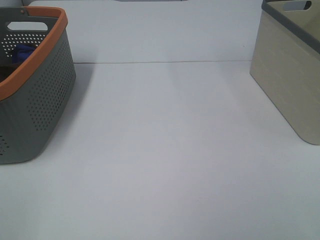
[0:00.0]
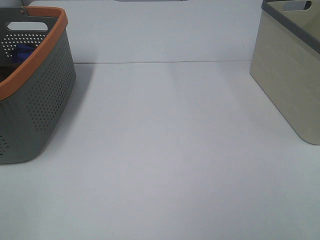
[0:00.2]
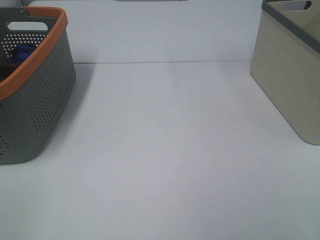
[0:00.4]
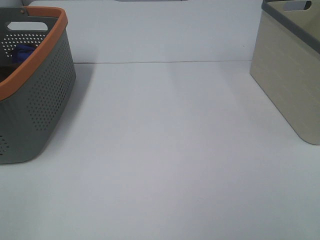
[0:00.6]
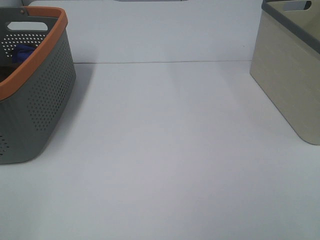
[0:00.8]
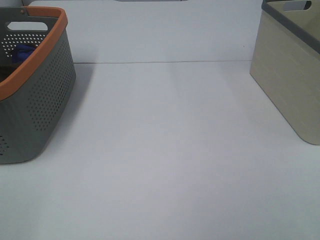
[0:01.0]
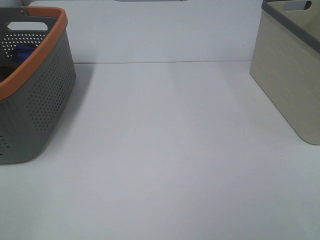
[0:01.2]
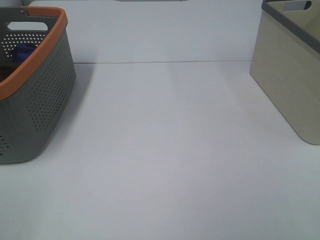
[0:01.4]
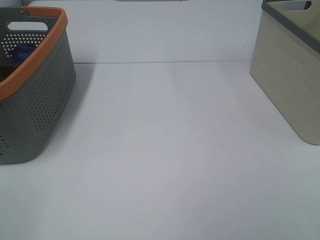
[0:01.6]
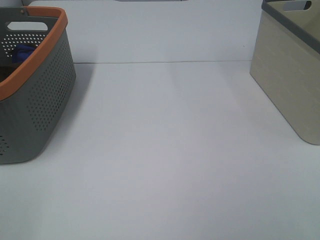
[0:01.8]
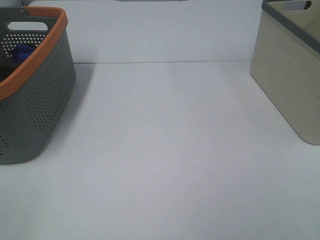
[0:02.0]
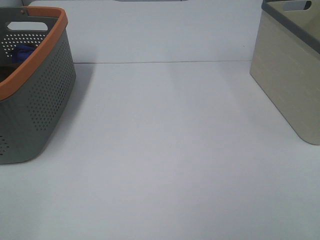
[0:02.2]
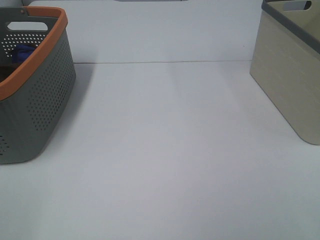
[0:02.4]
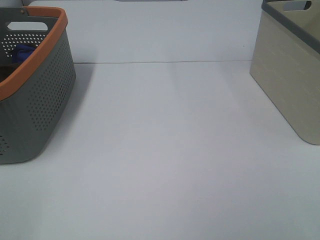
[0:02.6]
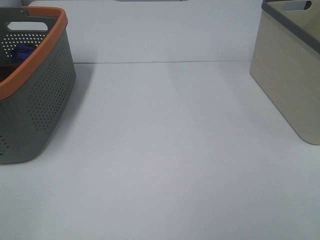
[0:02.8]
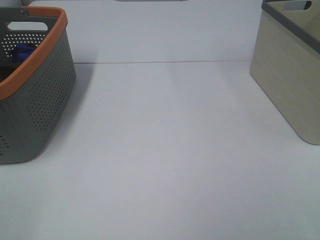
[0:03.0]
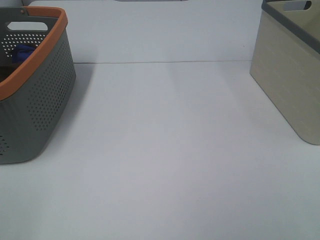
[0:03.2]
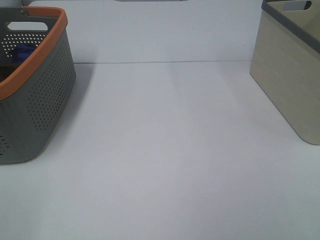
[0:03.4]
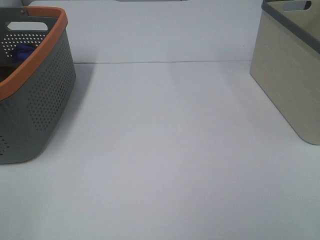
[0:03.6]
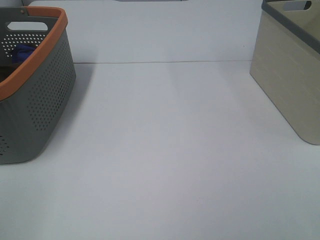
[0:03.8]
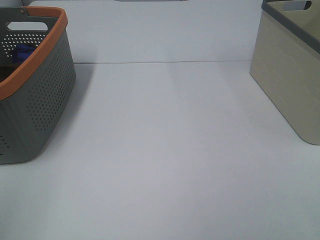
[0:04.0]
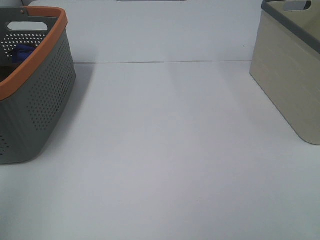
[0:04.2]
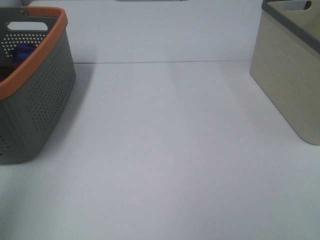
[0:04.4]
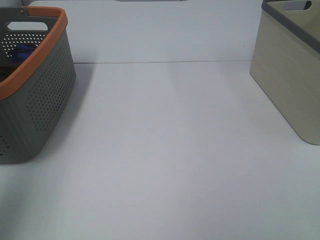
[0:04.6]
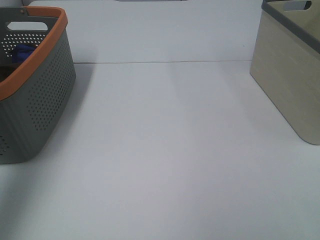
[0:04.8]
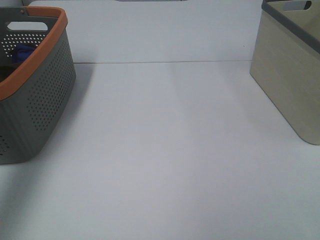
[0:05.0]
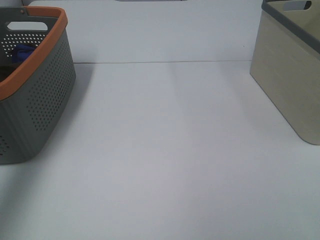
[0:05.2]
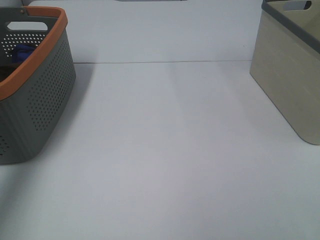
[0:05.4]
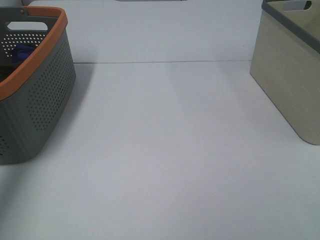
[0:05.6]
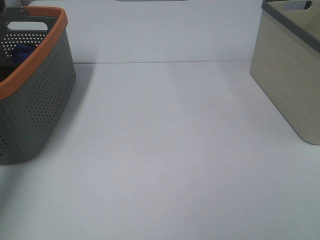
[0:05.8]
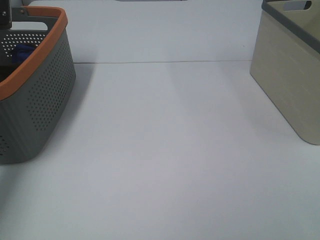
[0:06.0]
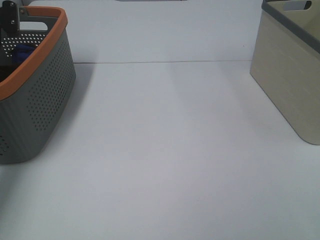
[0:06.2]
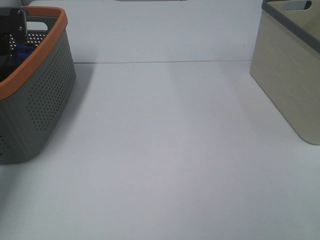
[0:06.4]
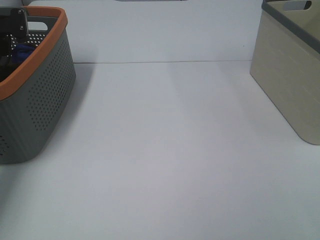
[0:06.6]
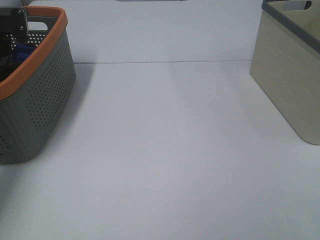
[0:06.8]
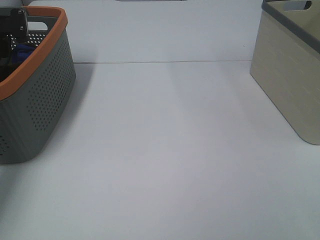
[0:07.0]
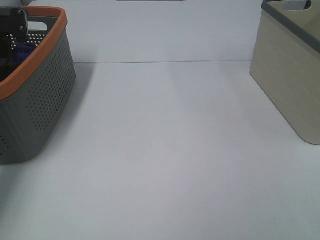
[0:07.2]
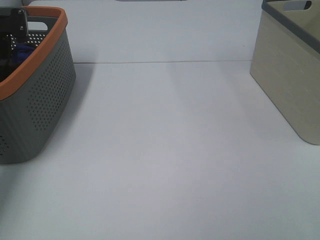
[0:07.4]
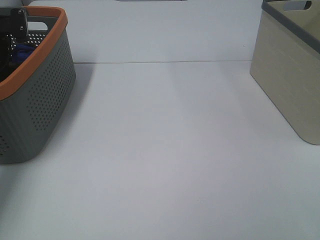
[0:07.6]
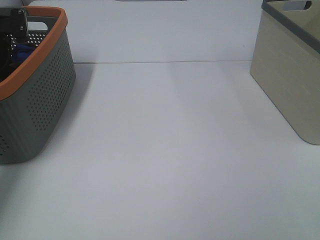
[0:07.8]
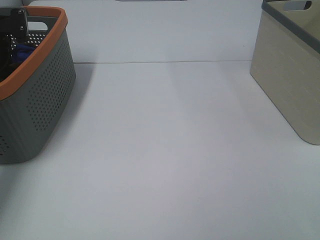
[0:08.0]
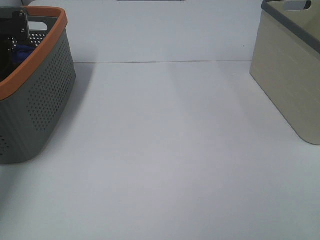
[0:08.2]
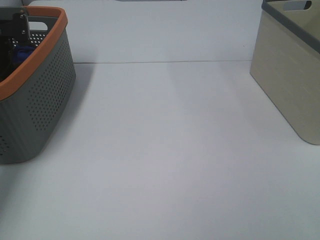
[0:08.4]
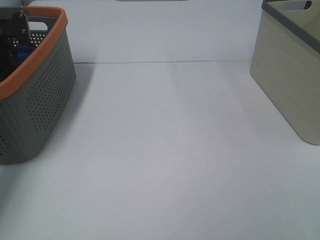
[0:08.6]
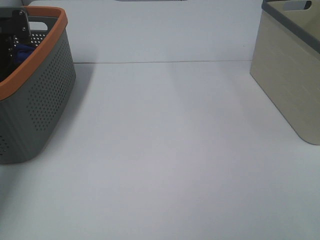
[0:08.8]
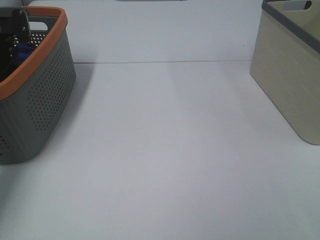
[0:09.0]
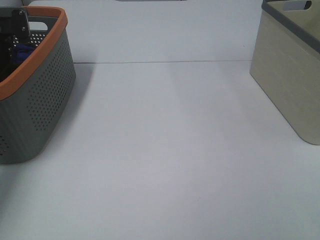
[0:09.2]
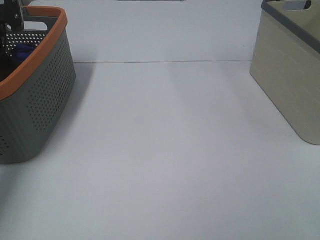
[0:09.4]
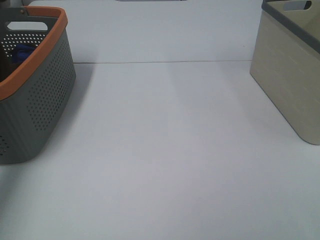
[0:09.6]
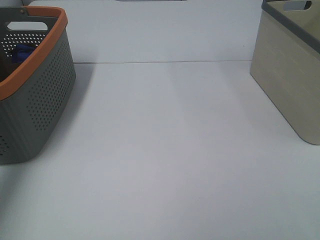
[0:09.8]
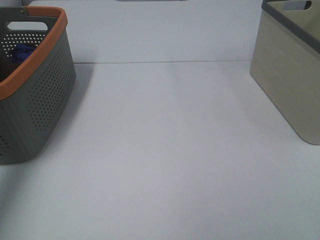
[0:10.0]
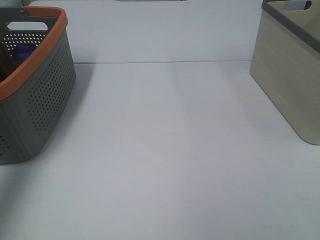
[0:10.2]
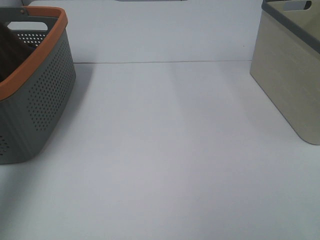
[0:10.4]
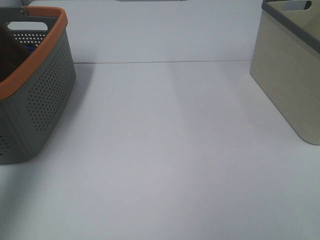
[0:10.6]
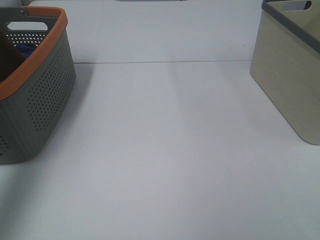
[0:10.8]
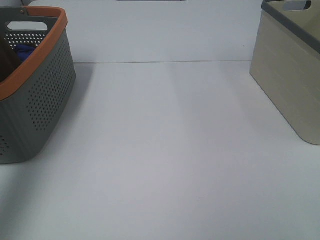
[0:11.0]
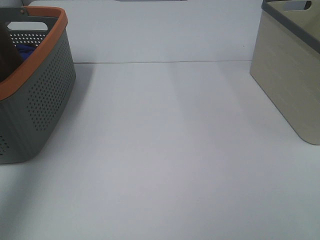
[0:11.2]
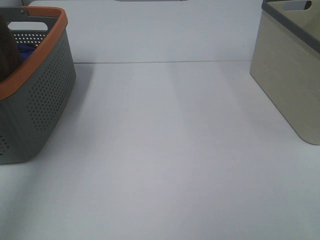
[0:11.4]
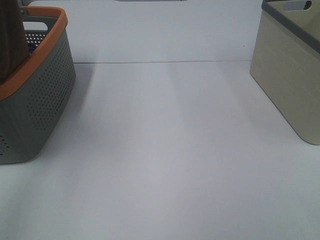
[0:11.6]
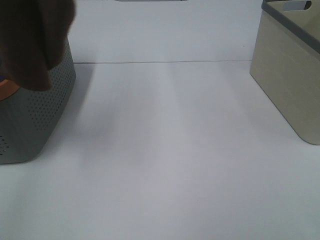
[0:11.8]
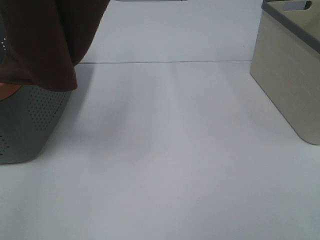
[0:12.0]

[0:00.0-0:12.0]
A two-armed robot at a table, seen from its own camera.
Task of the whole recording: Remove the towel and place it.
0:00.0 to 0:03.0: Both grippers stay put.
0:03.0 to 0:04.4: The left gripper goes about 20 cm forward and upward.
0:04.4 to 0:06.0: The left gripper moves forward and downward, approximately 35 cm.
0:06.0 to 0:07.6: The left gripper closes.
0:09.0 to 0:10.4: The left gripper shifts approximately 30 cm upward and backward.
0:10.4 to 0:12.0: The left gripper travels to the right, upward and backward by some 20 cm.

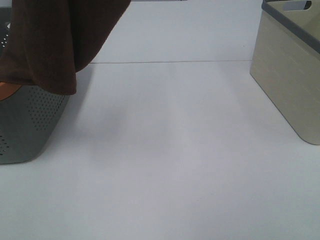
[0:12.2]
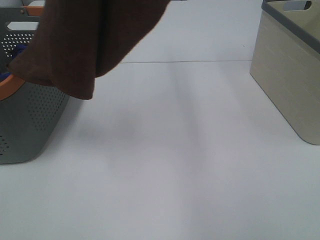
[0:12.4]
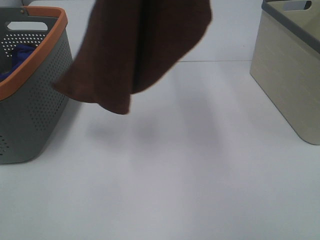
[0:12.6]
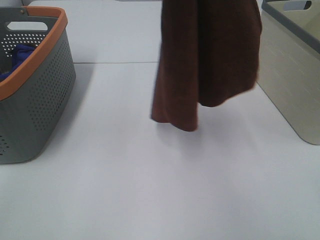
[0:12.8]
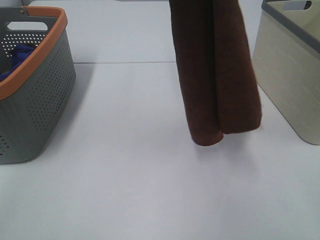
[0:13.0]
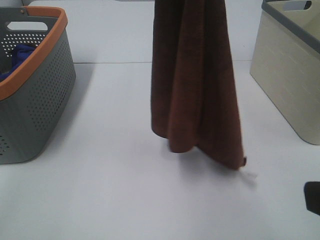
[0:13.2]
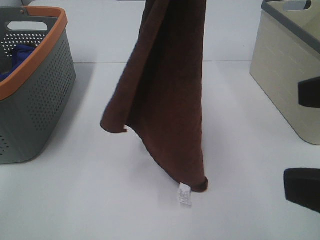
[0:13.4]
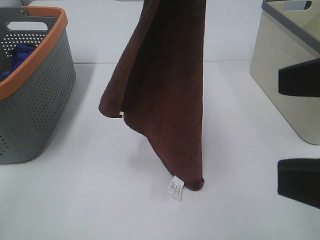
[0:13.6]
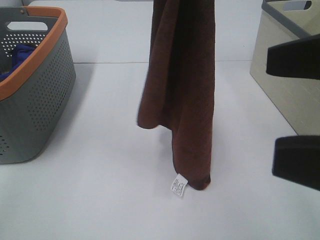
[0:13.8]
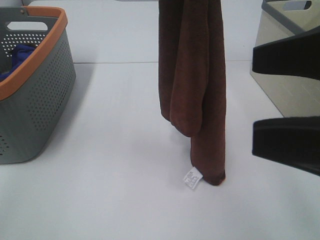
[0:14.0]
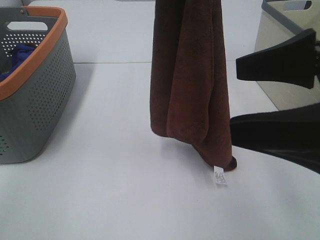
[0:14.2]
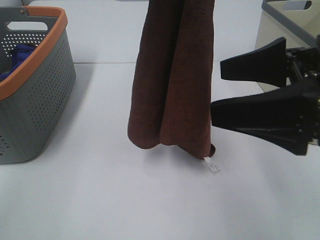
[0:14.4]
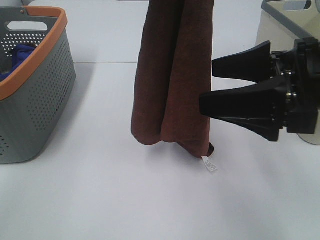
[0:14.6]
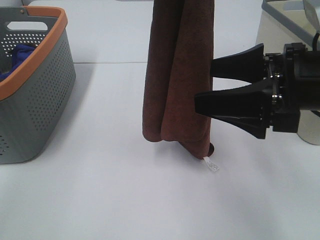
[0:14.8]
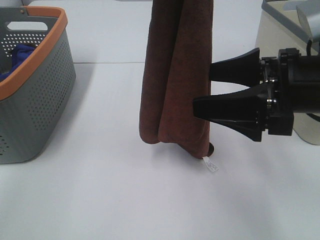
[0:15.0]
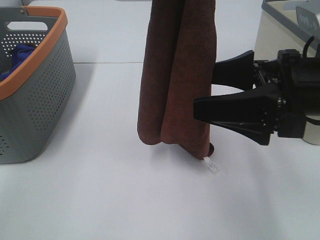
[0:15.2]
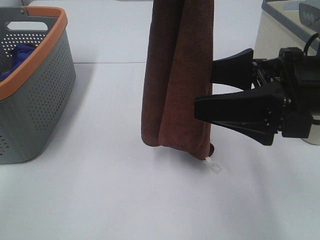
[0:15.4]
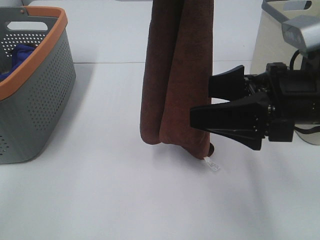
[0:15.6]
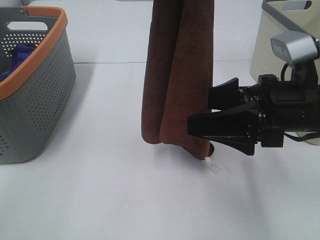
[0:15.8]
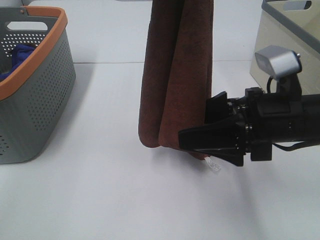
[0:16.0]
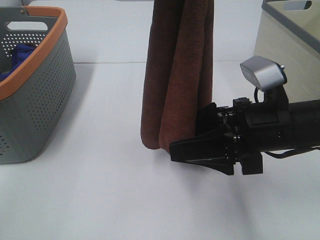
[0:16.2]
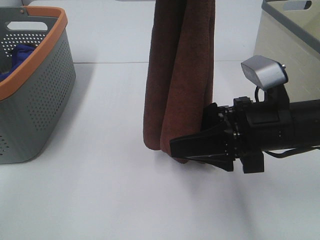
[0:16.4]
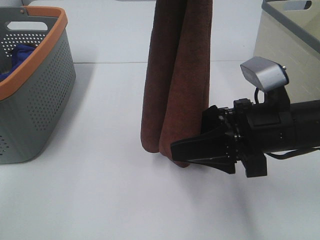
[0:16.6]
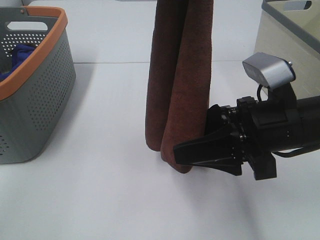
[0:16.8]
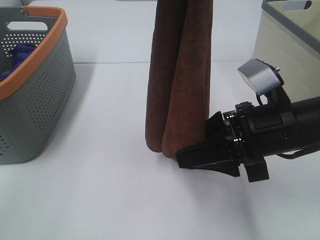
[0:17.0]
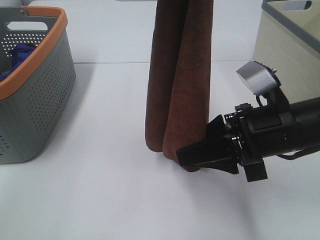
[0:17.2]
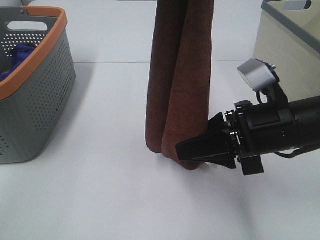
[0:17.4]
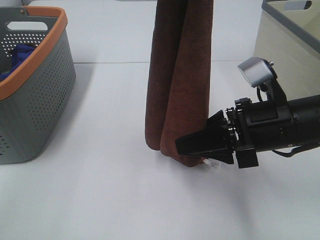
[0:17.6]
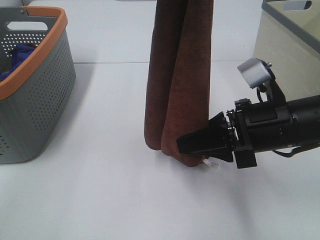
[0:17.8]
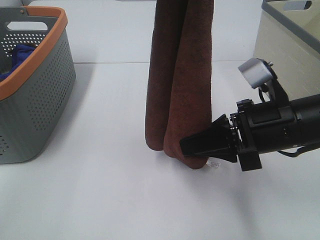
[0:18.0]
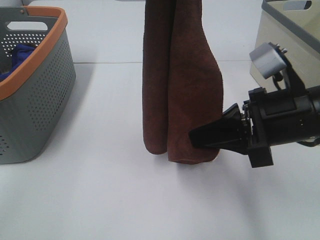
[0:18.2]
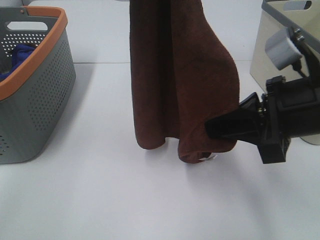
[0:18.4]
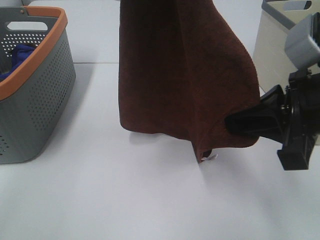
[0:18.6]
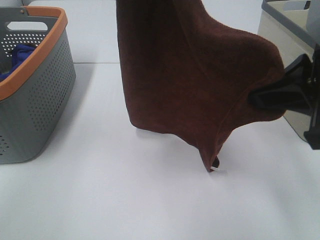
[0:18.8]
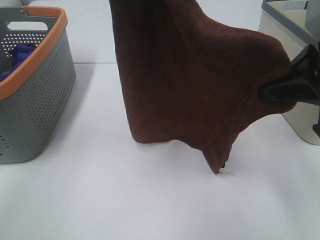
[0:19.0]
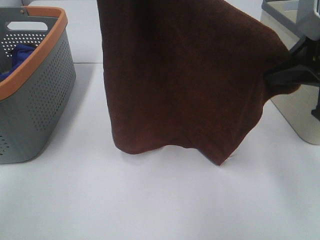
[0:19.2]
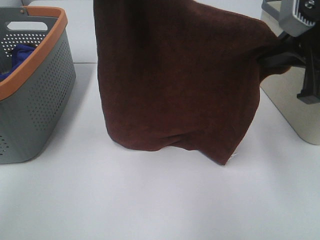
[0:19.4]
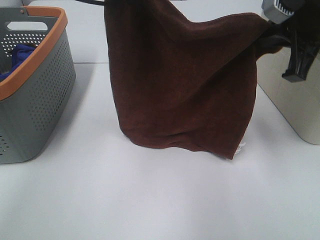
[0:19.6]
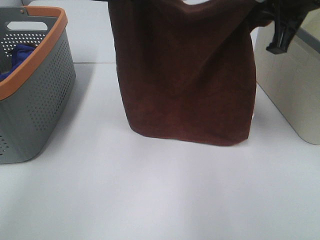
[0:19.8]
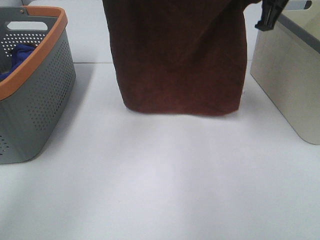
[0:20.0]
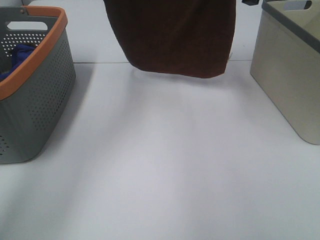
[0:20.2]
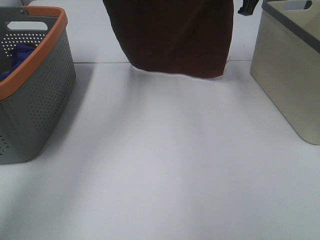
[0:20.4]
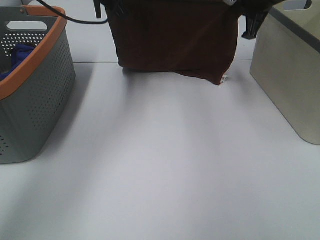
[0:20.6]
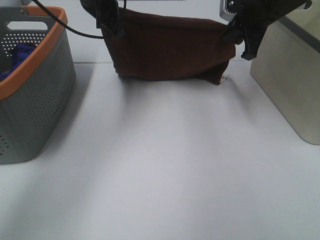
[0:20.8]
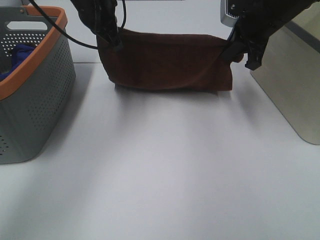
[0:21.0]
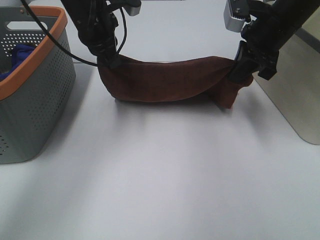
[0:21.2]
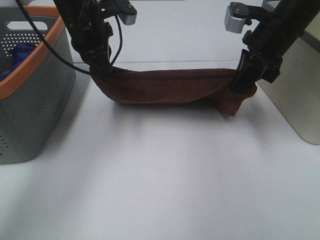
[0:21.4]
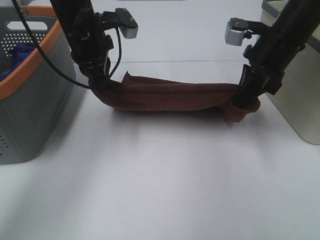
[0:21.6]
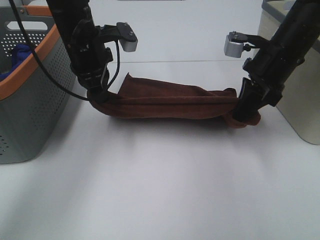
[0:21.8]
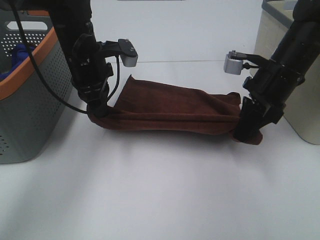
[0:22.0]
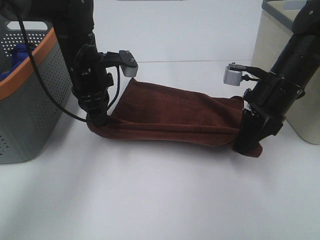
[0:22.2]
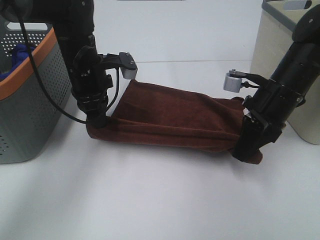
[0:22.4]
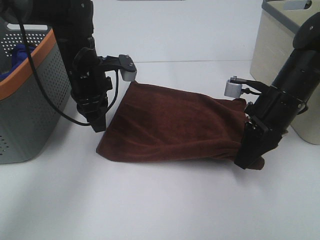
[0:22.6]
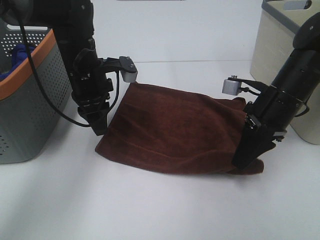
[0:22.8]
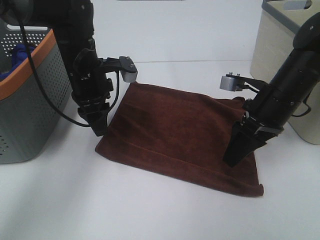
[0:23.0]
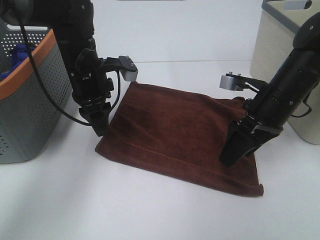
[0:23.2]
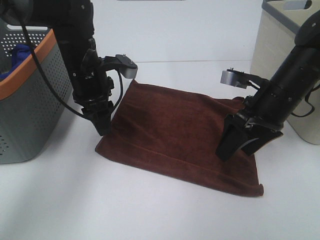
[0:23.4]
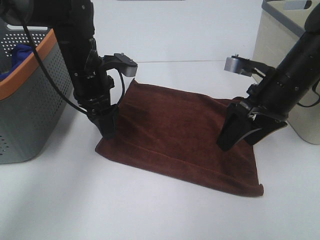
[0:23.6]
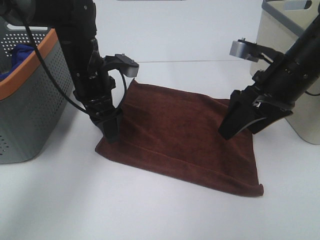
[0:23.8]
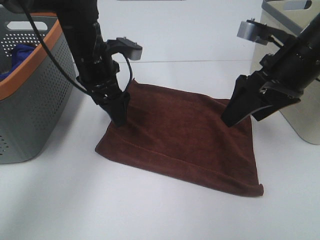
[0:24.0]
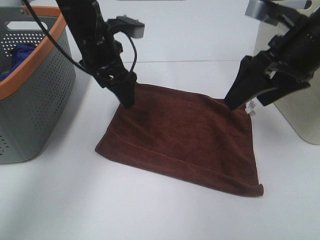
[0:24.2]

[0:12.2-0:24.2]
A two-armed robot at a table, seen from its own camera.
Task of the whole recording: Remove the towel and place it.
Step, 0:12.2 to 0:15.8: Right hand: grab a corner of the brown towel and straighten it.
Step, 0:16.0 to 0:18.0: Left hand: spread the brown towel flat on the table.
Step, 0:16.0 to 0:18.2: Right hand: spread the brown towel flat on the table.
0:12.2 to 0:13.8: The right gripper heads forward and to the left, covering some 10 cm. Meanwhile the left gripper shifts approximately 15 cm to the right and downward.
0:13.8 to 0:15.2: The right gripper moves forward and downward, roughly 15 cm.
0:15.2 to 0:16.6: The right gripper heads downward, covering approximately 5 cm, and closes up.
0:16.6 to 0:18.2: The right gripper shifts by about 5 cm, and closes its fingers.
0:18.2 to 0:19.8: The right gripper heads upward and forward, covering about 20 cm. Meanwhile the left gripper shifts some 15 cm forward and downward.
0:19.8 to 0:21.2: The left gripper heads downward, covering some 10 cm; the right gripper is displaced downward and forward by approximately 10 cm.
0:21.2 to 0:22.6: The left gripper is displaced downward by about 10 cm. The right gripper heads downward and backward, covering about 15 cm.
0:22.6 to 0:24.2: The left gripper heads upward, covering roughly 5 cm, and opens. The right gripper shifts roughly 15 cm upward, and opens.